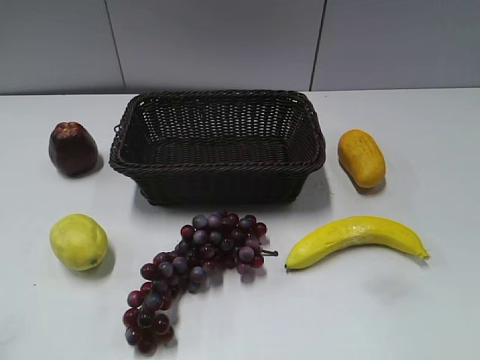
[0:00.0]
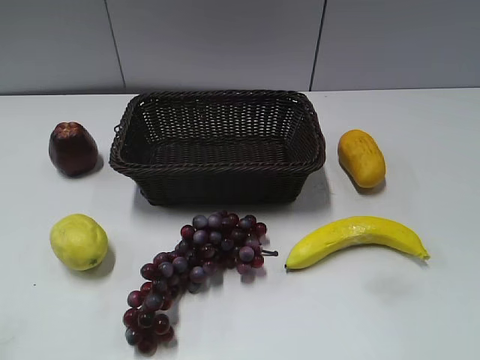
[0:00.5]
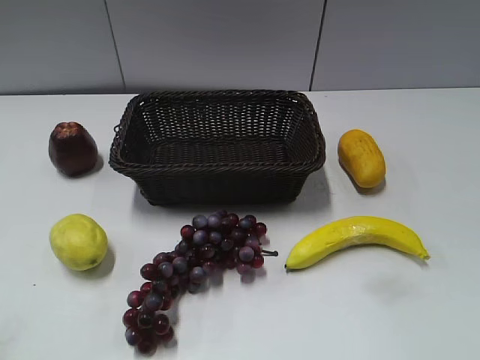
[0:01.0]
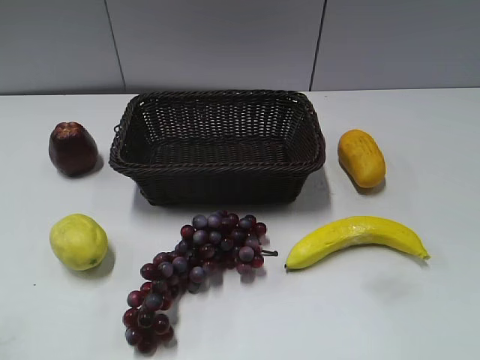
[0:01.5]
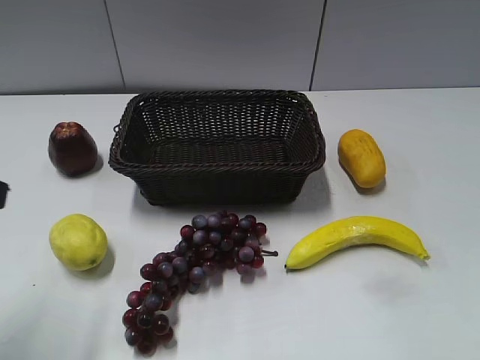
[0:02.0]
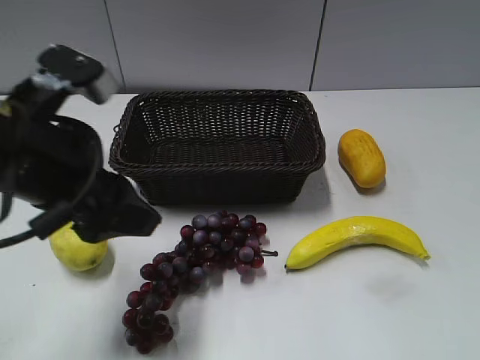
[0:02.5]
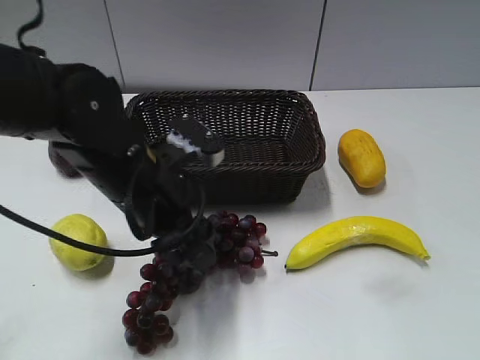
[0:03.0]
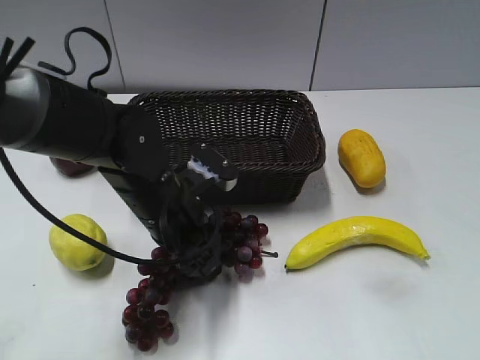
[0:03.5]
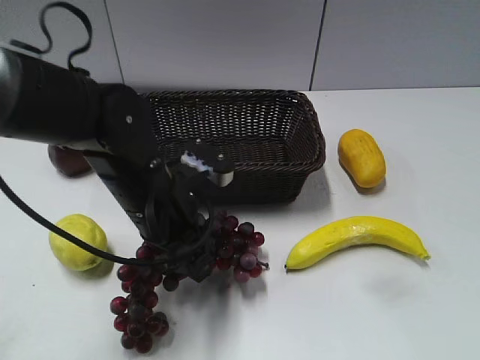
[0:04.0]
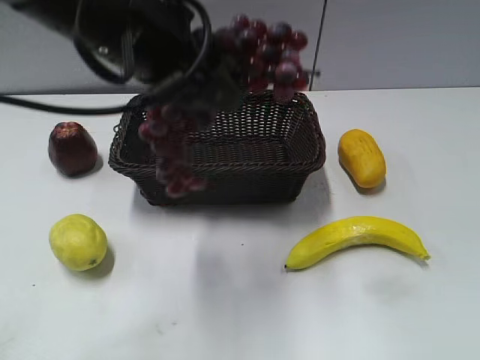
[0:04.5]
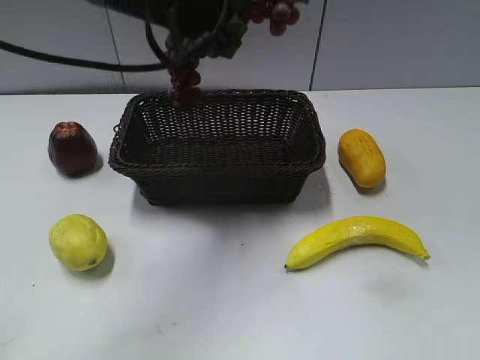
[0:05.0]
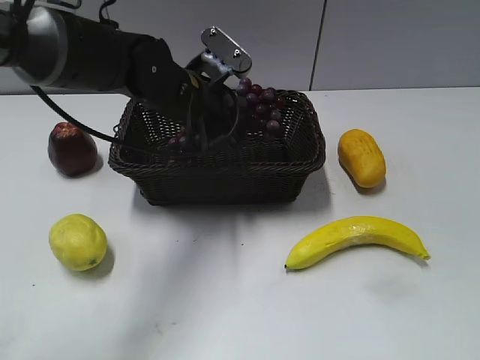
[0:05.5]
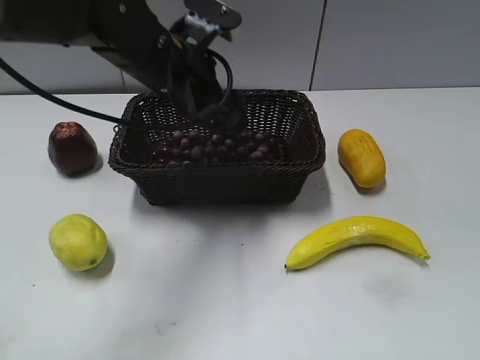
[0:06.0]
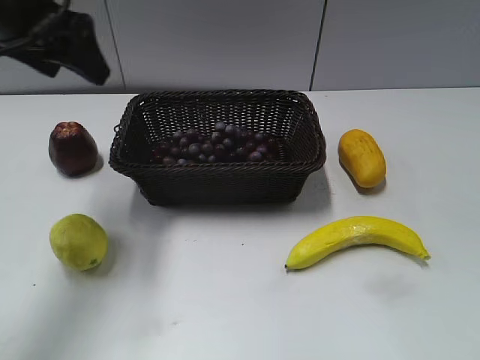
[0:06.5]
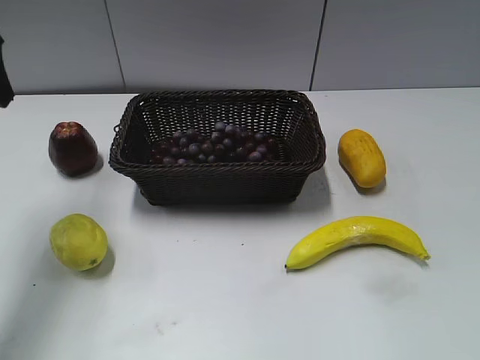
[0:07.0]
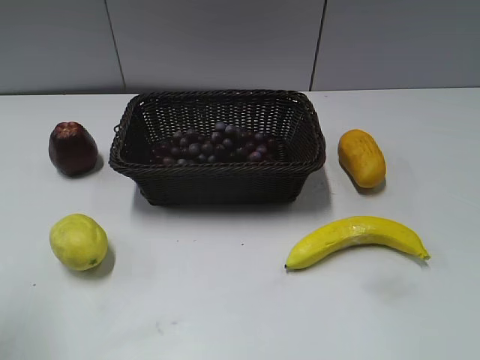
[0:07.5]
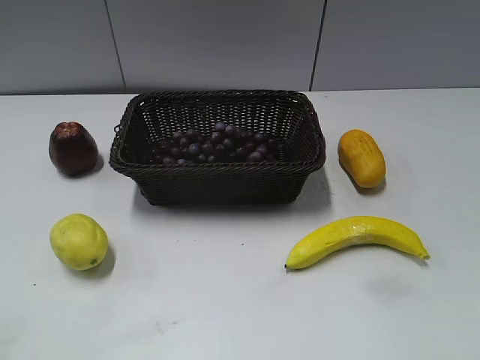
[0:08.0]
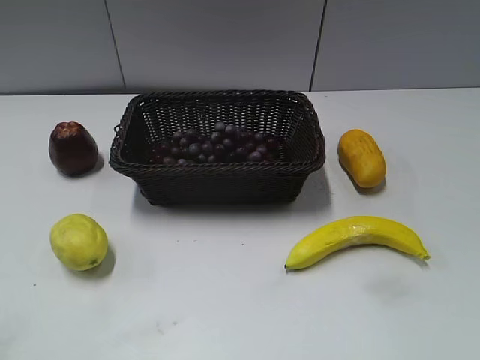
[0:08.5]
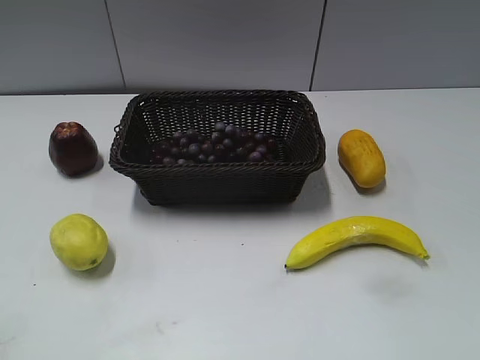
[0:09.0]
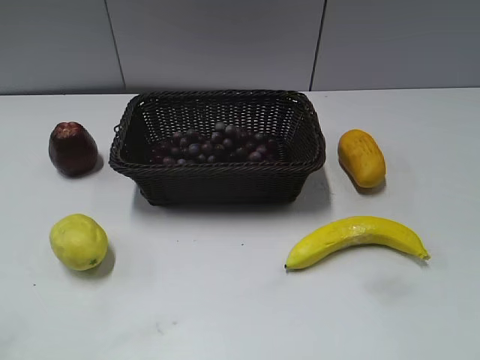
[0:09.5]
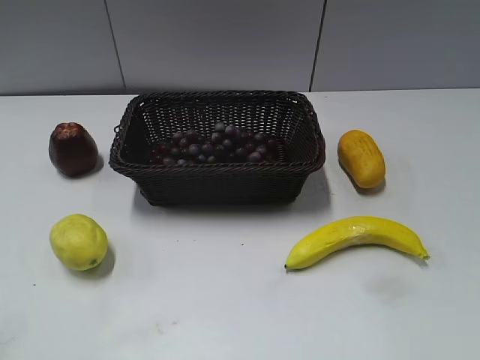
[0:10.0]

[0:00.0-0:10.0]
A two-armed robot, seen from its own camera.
Step, 0:02.0 to 0:03.5: Grasp the grape with left gripper.
Step, 0:04.0 to 0:05.5: Place the grape in the basket with left gripper.
0:02.0 to 0:04.0: The left gripper travels to the right, downward and forward by approximately 30 cm, and closes up.
0:04.0 to 0:06.0: The left gripper heads forward and upward, covering about 10 cm, and opens up.
0:06.0 to 0:08.0: The left gripper heads backward and to the left, covering some 40 cm.
